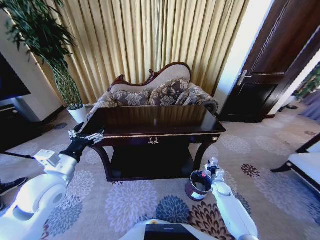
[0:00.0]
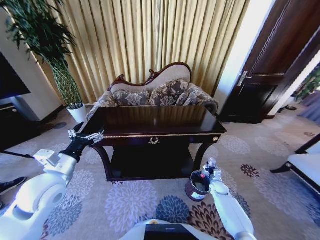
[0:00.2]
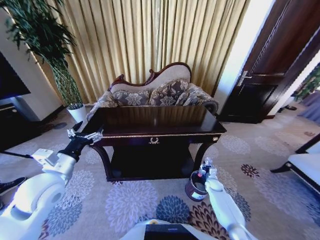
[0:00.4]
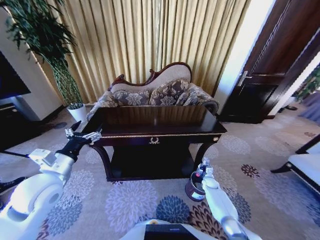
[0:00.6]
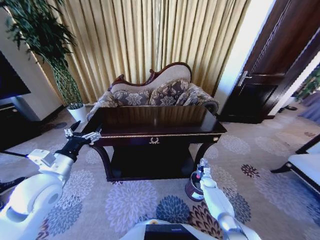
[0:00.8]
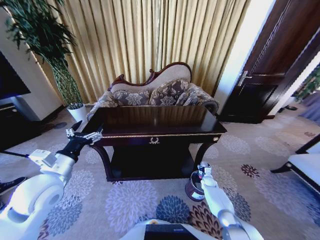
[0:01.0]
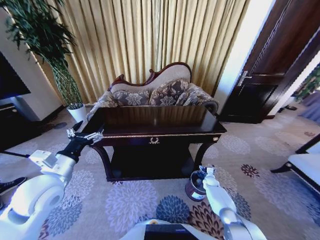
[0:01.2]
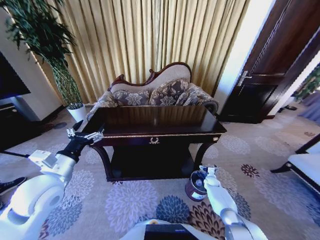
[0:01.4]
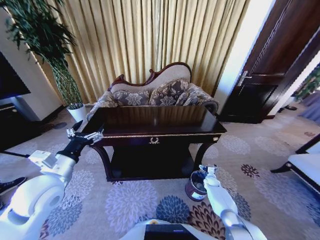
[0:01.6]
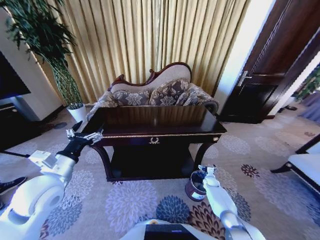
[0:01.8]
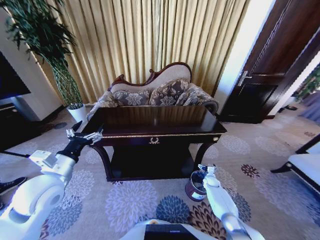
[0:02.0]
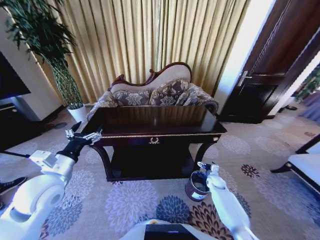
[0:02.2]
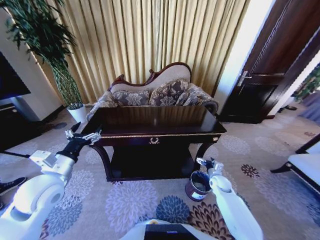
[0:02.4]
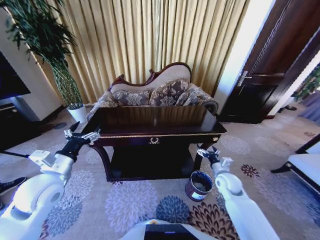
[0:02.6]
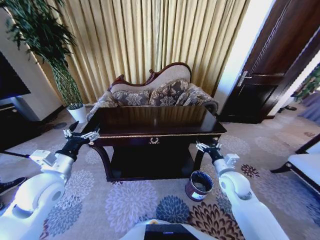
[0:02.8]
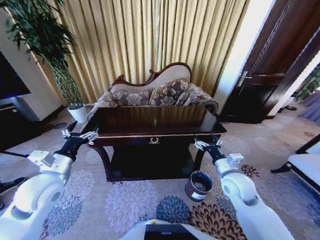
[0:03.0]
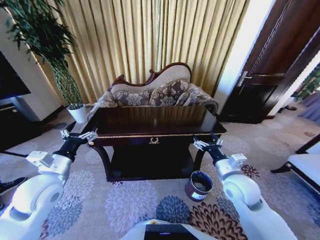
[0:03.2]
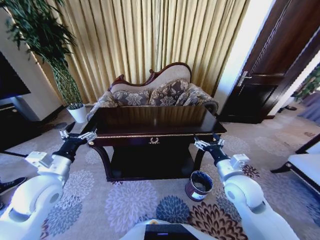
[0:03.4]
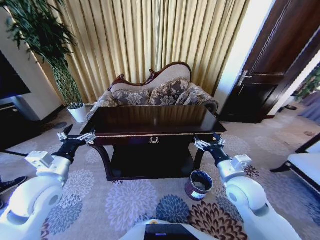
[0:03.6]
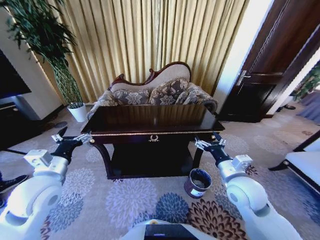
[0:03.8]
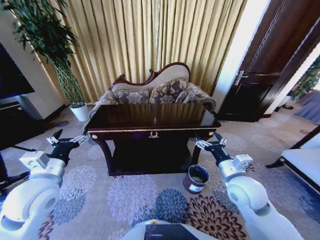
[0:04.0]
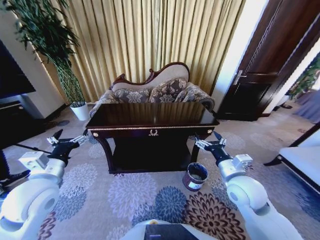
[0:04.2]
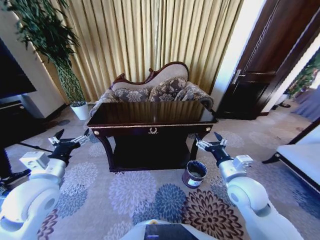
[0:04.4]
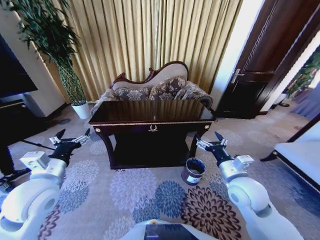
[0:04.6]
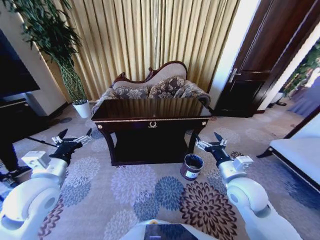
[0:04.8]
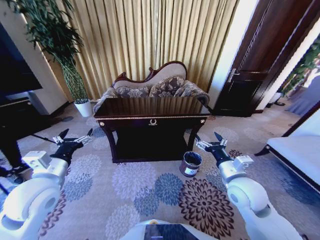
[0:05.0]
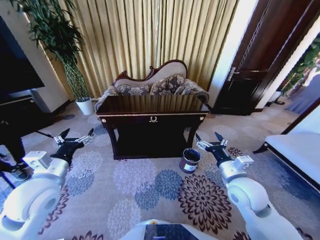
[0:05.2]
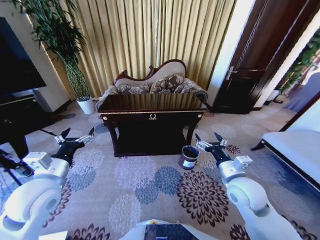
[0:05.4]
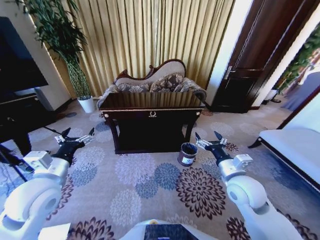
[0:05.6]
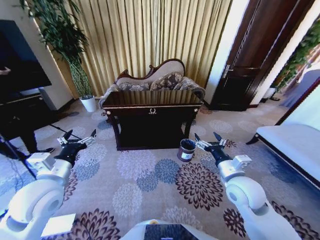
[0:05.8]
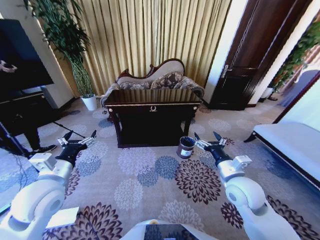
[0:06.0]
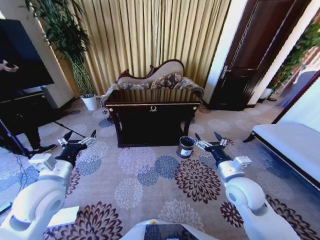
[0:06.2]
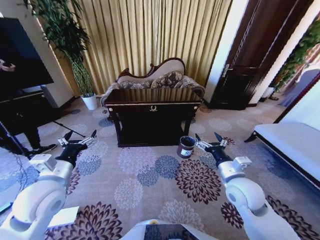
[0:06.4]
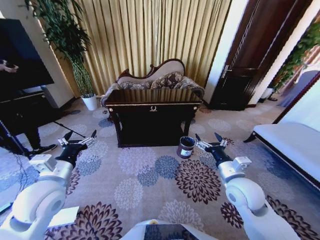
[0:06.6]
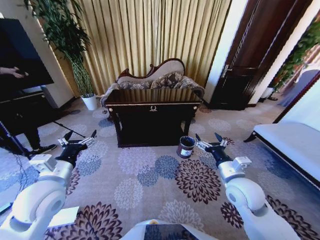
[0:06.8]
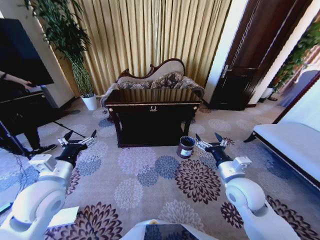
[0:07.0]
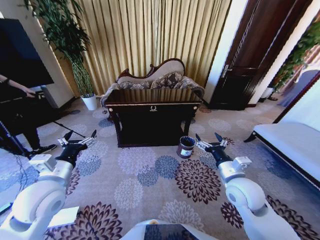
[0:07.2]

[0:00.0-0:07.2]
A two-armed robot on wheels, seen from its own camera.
Task of the whole recording: Move to the front of the table and place the trash on the table into the trash bin.
0:00.0 to 0:01.4: The right gripper travels downward and forward by approximately 10 cm, and opens up.
0:01.4 to 0:02.8: The right gripper goes some 30 cm upward.
0:02.8 to 0:04.4: The right gripper heads upward and backward, covering approximately 10 cm.
